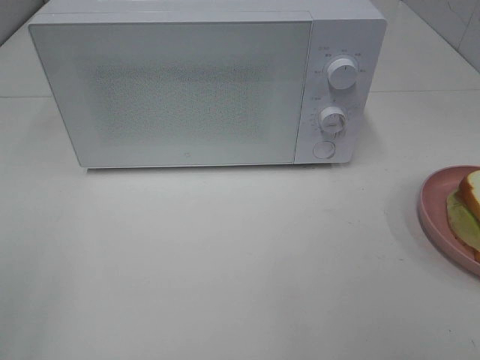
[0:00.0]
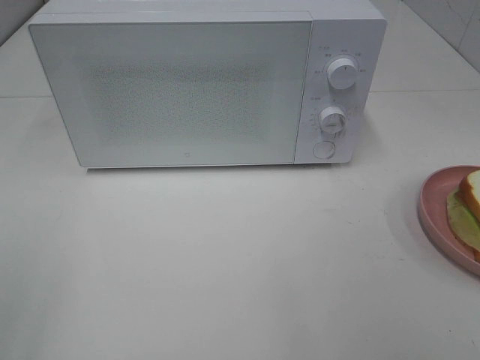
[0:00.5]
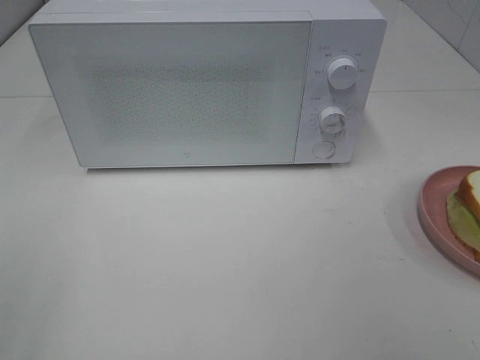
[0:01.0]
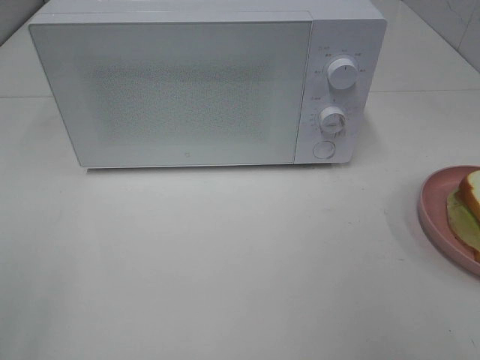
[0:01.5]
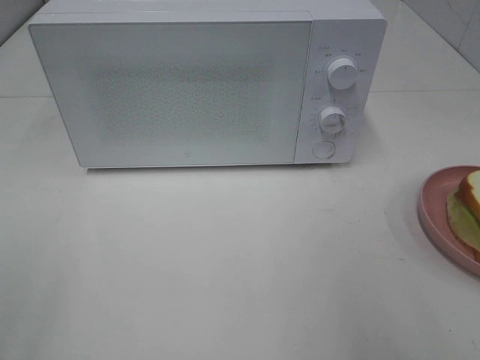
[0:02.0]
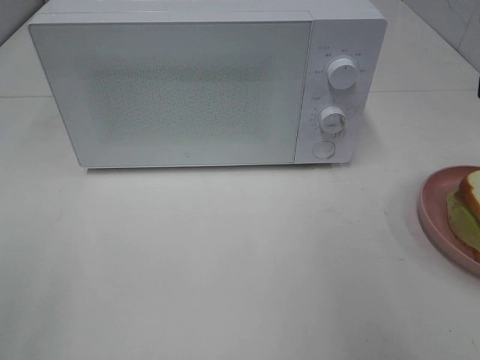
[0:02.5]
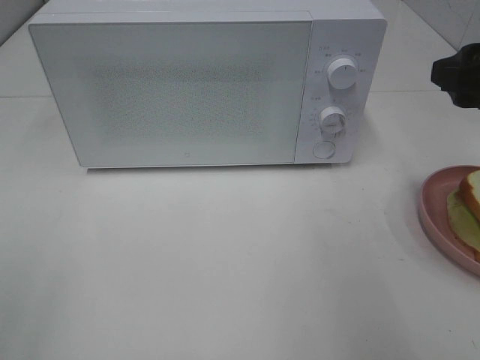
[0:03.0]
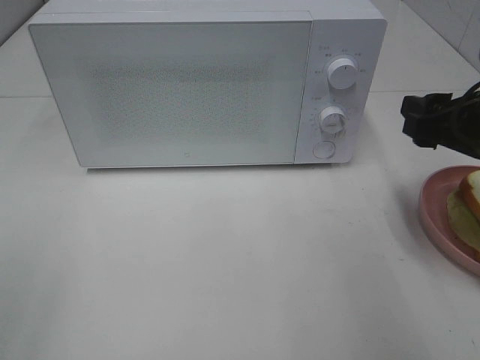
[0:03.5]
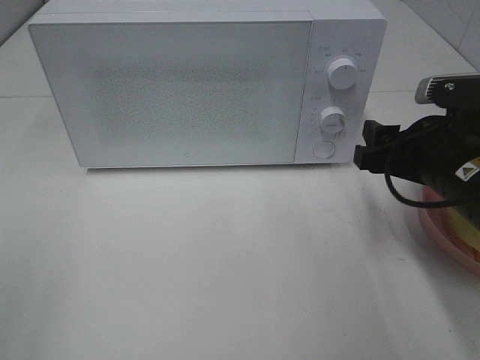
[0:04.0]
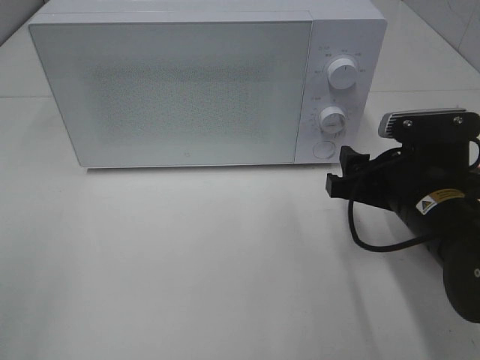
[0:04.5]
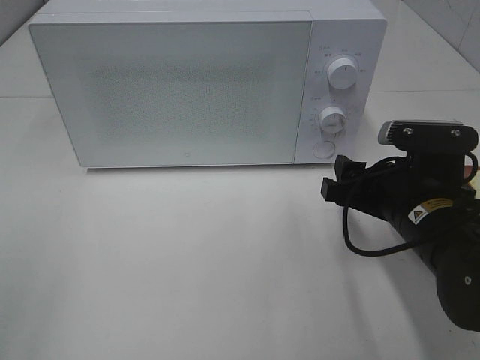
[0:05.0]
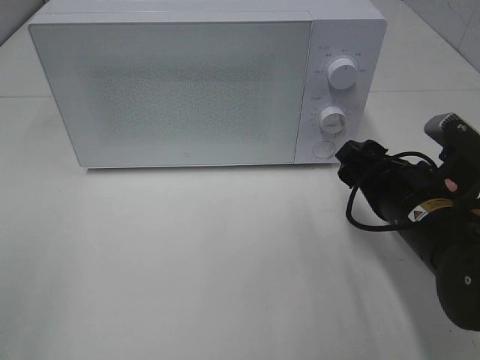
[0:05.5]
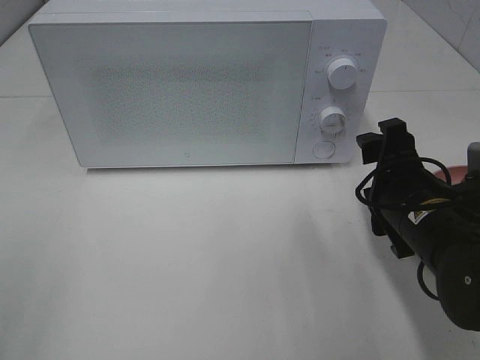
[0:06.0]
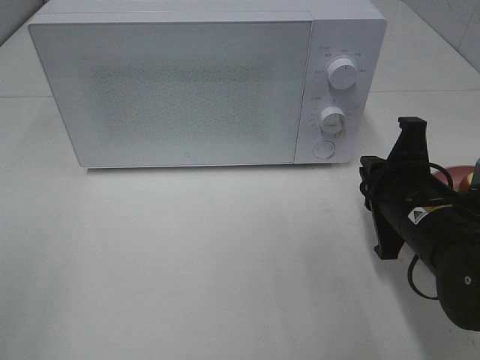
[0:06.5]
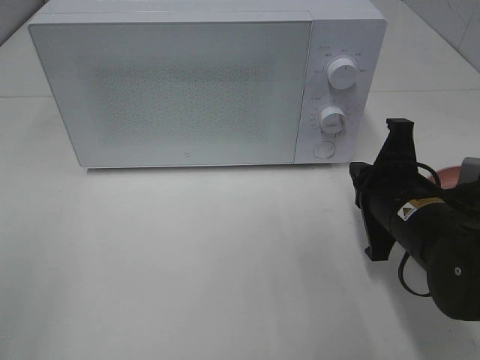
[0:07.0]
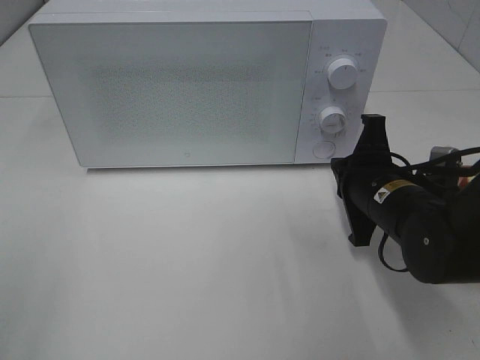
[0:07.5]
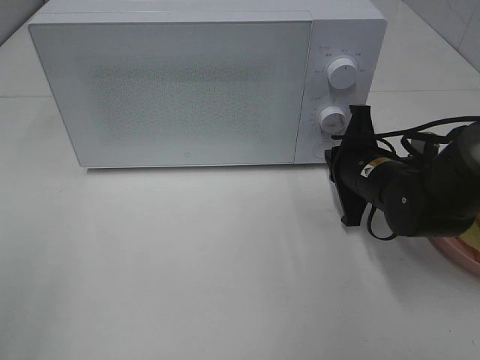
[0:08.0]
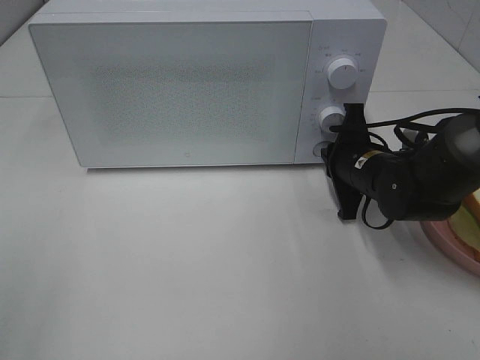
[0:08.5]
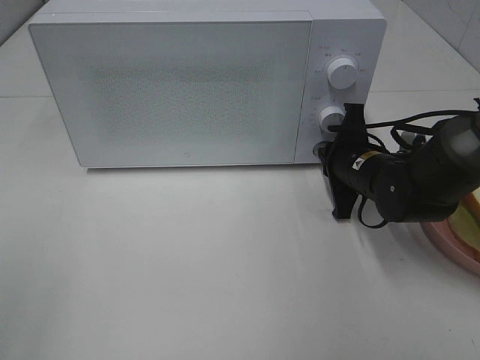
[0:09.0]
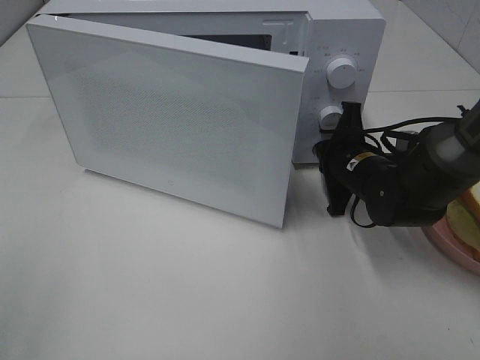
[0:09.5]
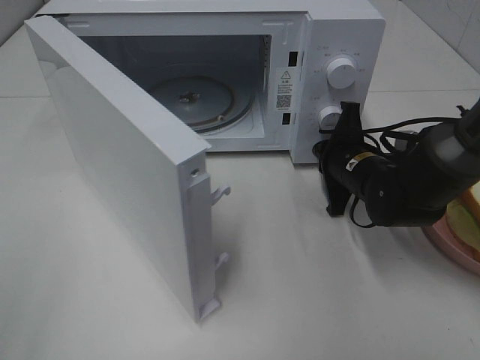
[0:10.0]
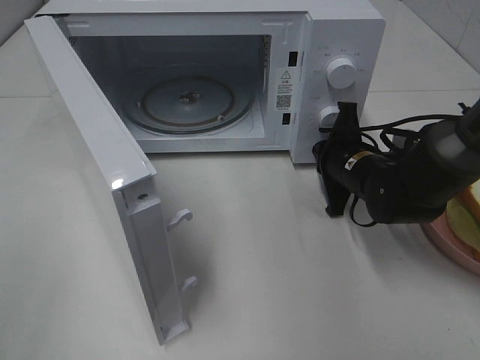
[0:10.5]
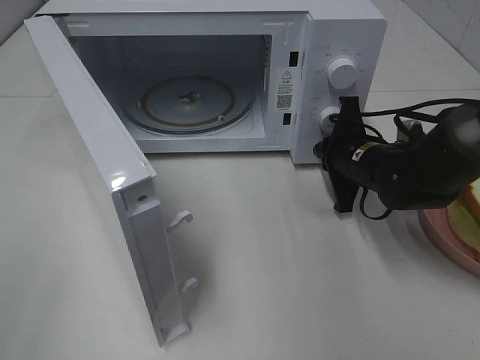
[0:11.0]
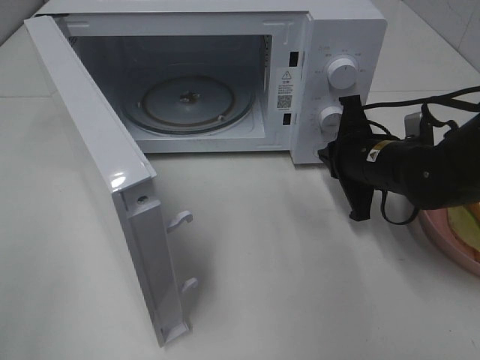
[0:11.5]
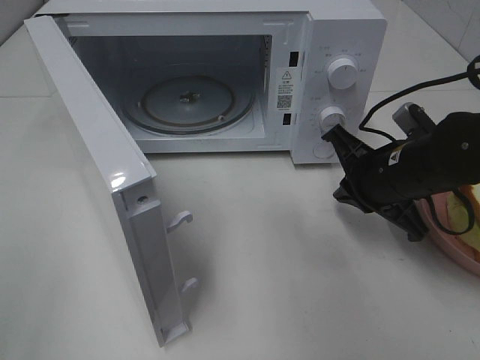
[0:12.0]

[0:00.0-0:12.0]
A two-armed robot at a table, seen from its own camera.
Task of the whole recording: Heat Sandwich.
Step, 0:00.0 to 0:11.0: Right hand: press the switch.
0:02.0 to 0:04.0: The right gripper is displaced downward, forward and to the left by roughly 20 cm.
0:04.0 to 0:06.0: The right gripper ends up roughly 5 cm from where it was.
0:06.0 to 0:08.0: The right gripper is displaced forward by approximately 10 cm, and closes.
0:10.0 to 0:12.0: The right gripper travels backward and upward by about 10 cm.

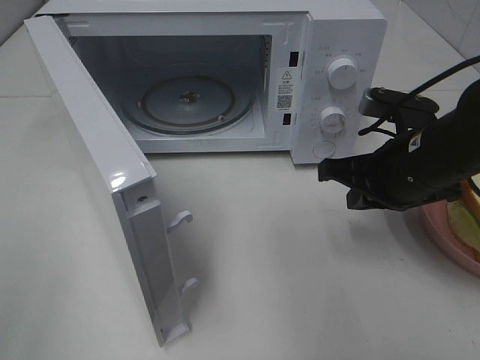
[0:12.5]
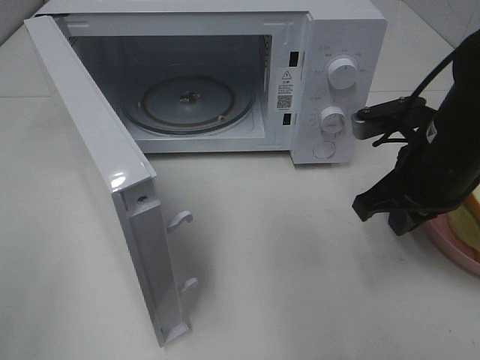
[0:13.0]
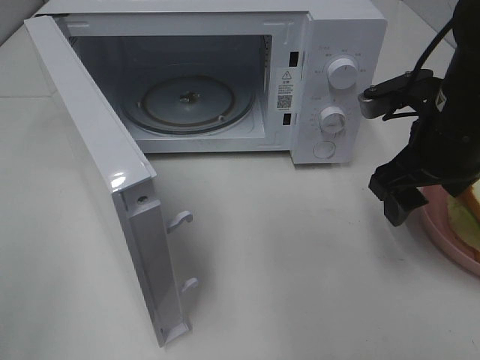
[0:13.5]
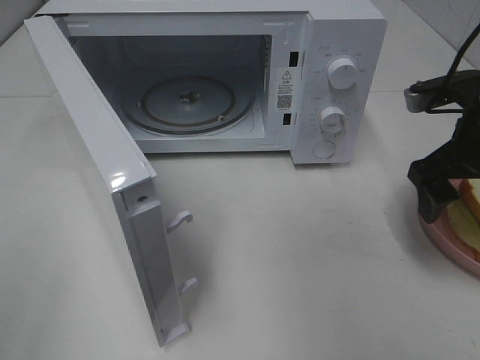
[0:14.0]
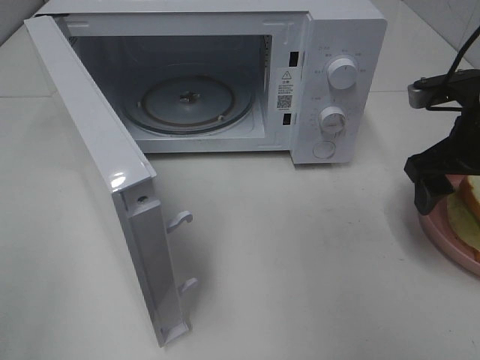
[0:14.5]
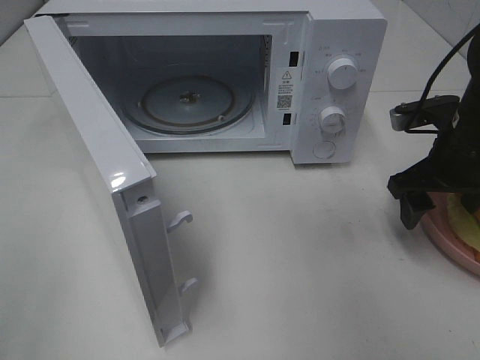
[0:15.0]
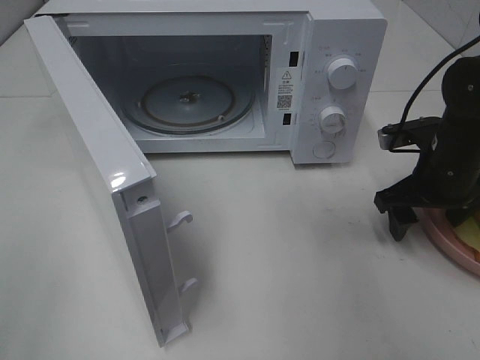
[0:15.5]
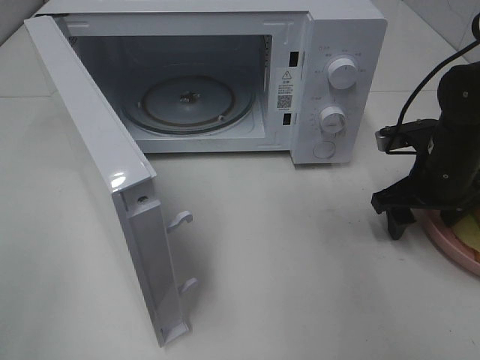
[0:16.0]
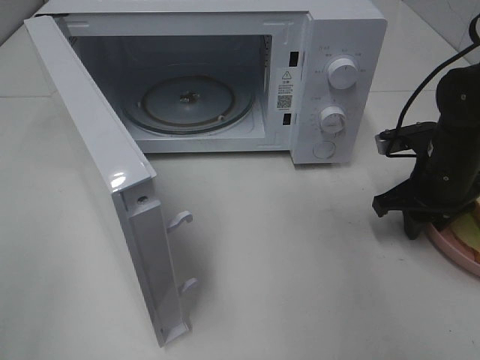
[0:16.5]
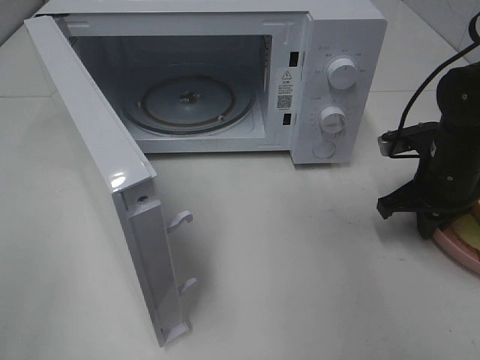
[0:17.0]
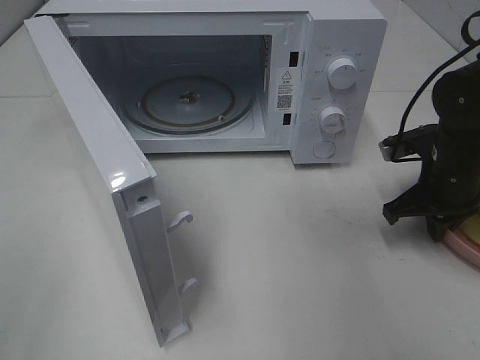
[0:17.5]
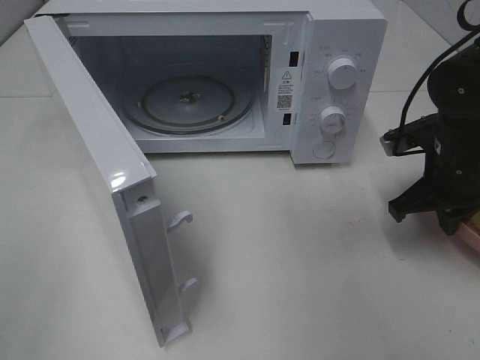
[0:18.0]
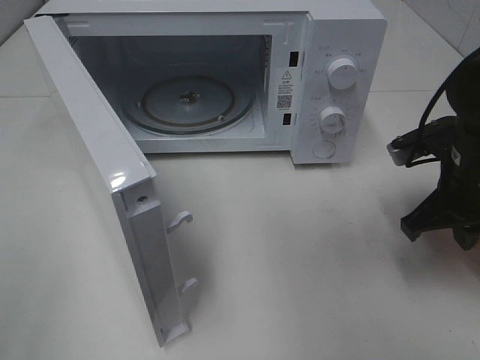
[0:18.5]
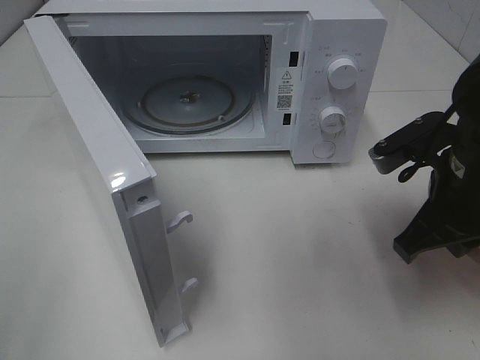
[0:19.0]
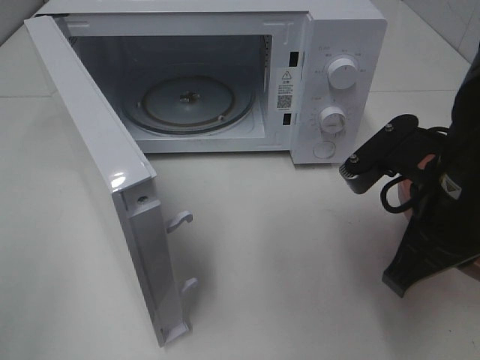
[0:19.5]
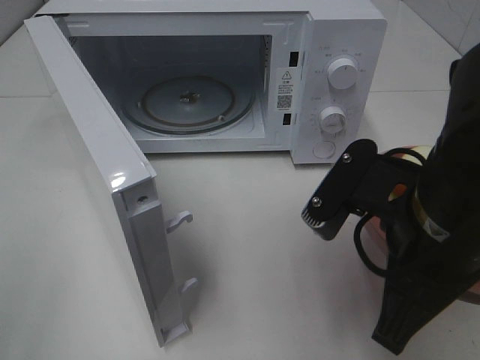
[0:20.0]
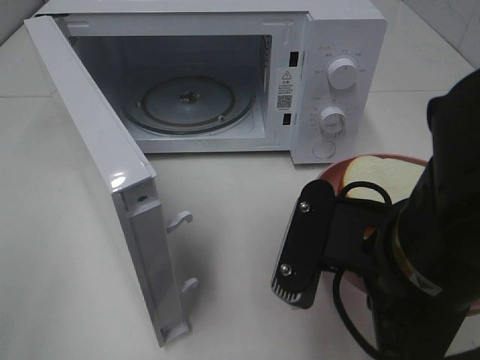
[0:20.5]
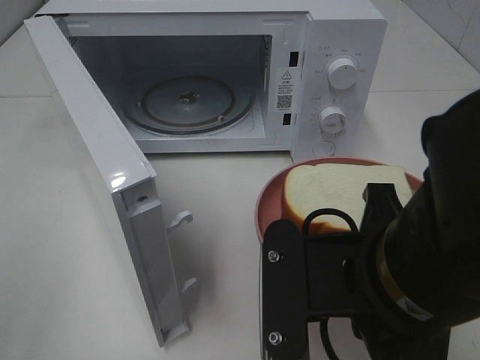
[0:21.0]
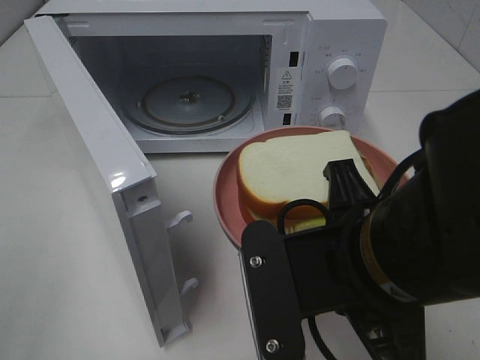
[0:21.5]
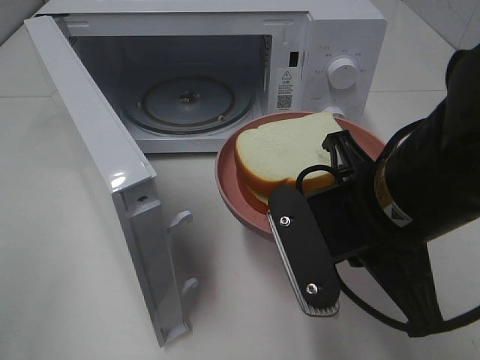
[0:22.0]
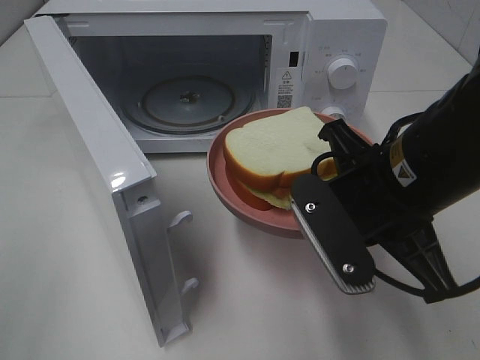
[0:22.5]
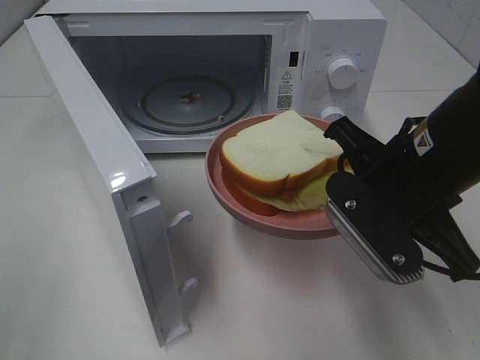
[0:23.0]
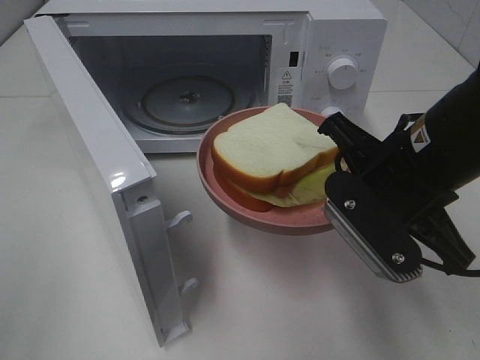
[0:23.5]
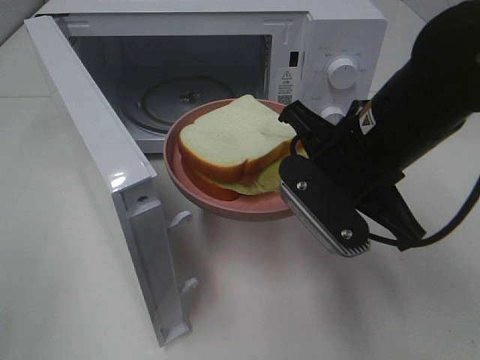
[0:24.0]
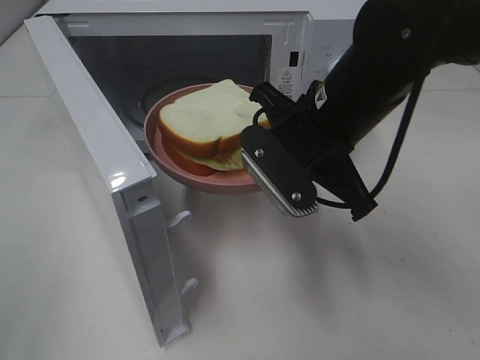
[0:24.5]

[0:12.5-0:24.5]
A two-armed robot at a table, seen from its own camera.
Task of the whole recording: Heat Sandwich.
Step, 0:12.5 to 0:17.5: Right hand: grab the plate with the sandwich.
0:12.5 to 0:14.5: The right gripper goes roughly 5 cm to the right, and opens.
0:14.5 to 0:16.5: The right gripper shifts roughly 10 cm downward, and closes up.
0:16.5 to 0:18.5: The right gripper heads backward, covering some 5 cm, and closes its fingers.
0:18.5 to 0:20.5: The right gripper is displaced backward and to the left by roughly 20 cm.
0:20.5 to 0:22.5: The right gripper heads forward, covering about 5 cm.
0:22.5 to 0:24.5: The right gripper moves forward, some 10 cm.

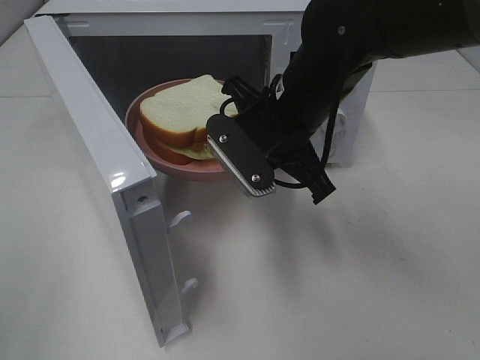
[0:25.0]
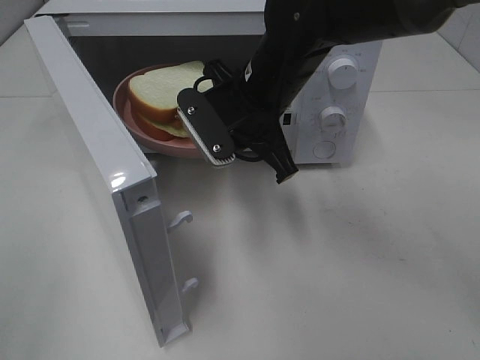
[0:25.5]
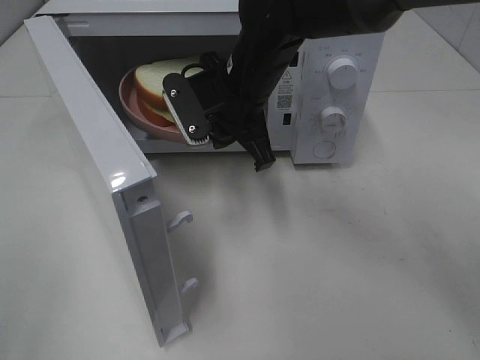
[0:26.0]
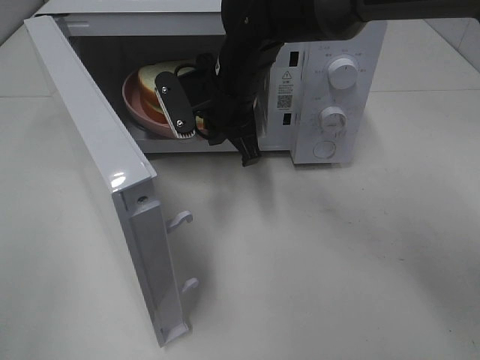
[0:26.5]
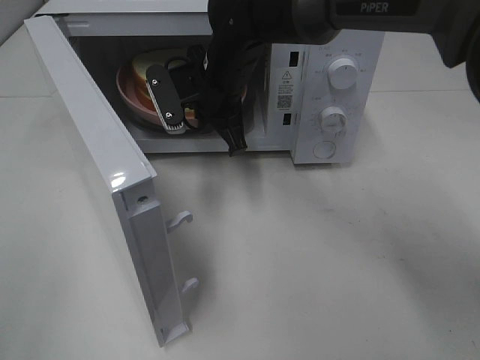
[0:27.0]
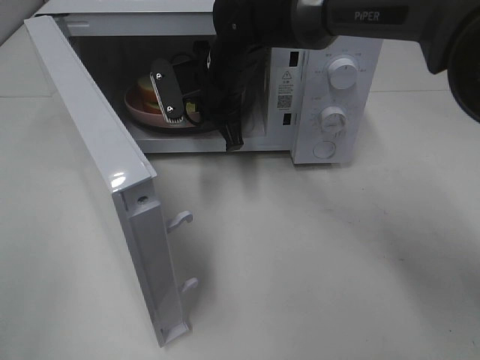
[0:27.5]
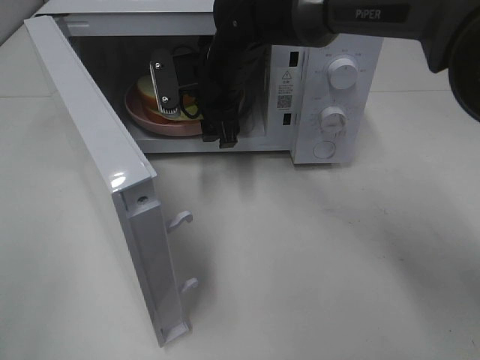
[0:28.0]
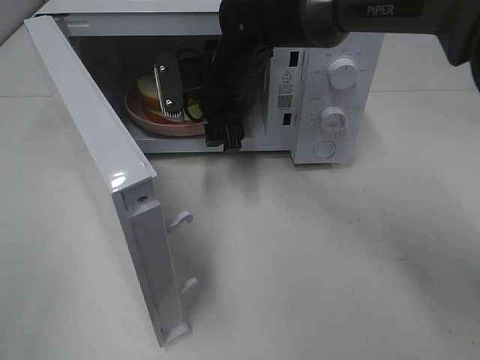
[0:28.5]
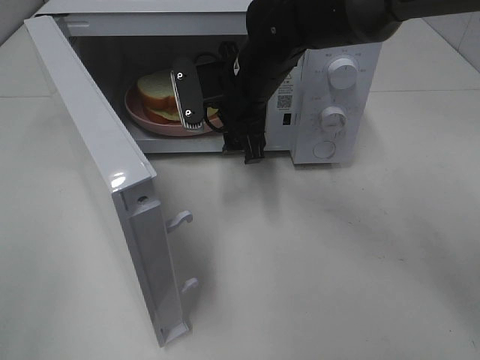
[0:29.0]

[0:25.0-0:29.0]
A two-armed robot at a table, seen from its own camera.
Task of the whole recording: Heat Sandwich.
Step, 0:25.0 to 0:27.5: Right hand: place the plate in the microwave.
0:25.0 to 0:27.0: The right gripper goes roughly 15 cm forward and to the left.
0:27.0 to 0:29.0: The right gripper opens its fingers.
